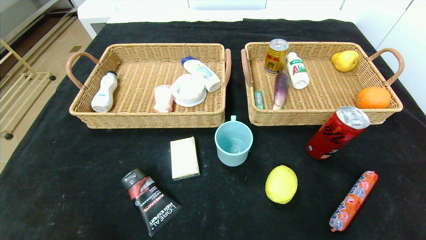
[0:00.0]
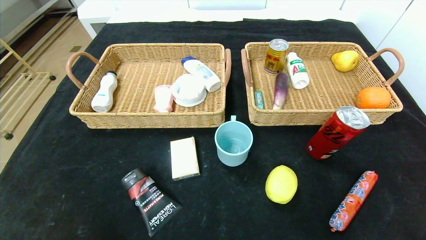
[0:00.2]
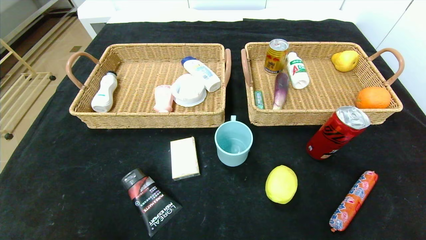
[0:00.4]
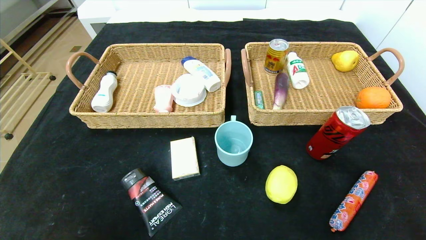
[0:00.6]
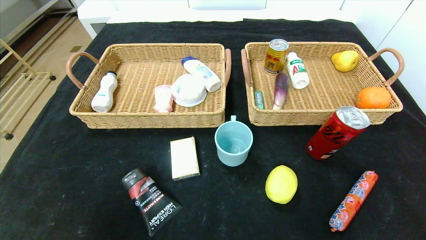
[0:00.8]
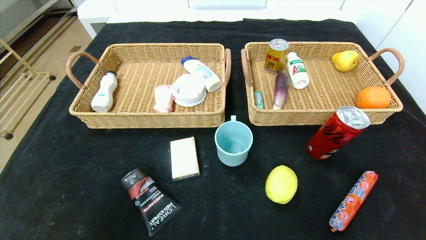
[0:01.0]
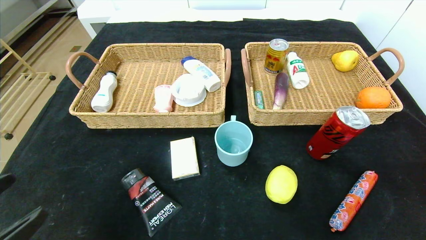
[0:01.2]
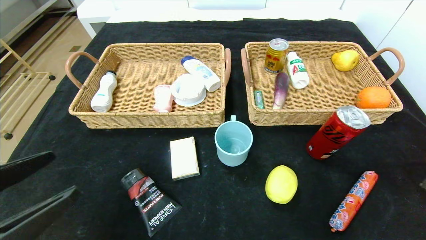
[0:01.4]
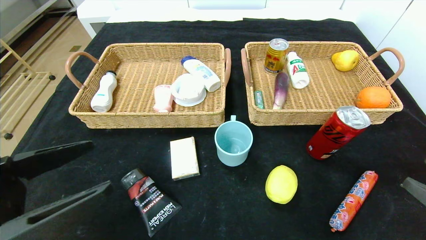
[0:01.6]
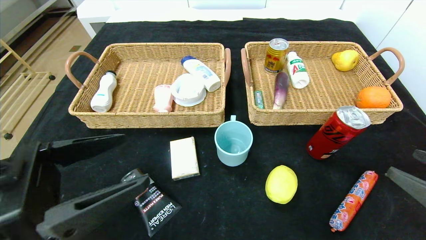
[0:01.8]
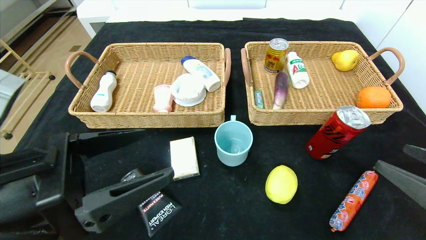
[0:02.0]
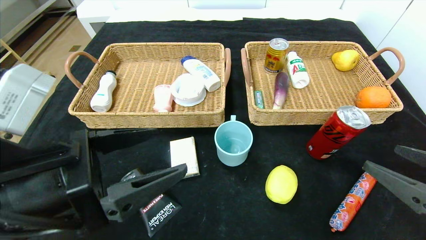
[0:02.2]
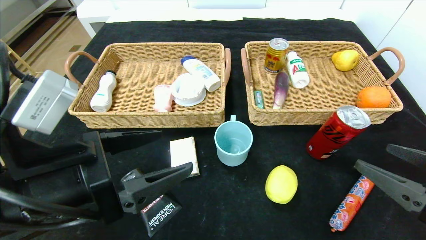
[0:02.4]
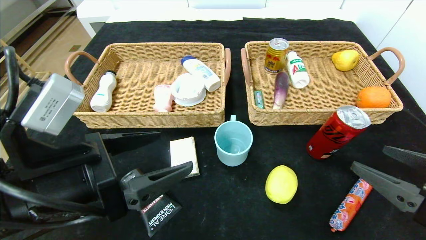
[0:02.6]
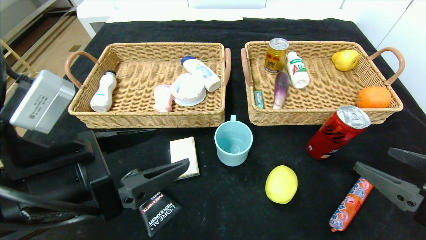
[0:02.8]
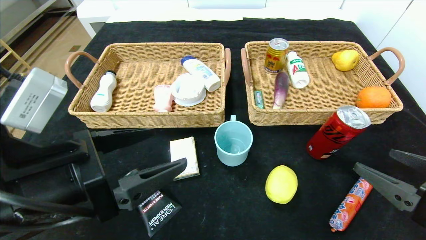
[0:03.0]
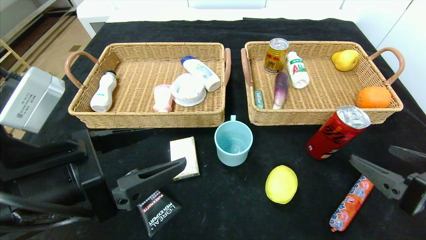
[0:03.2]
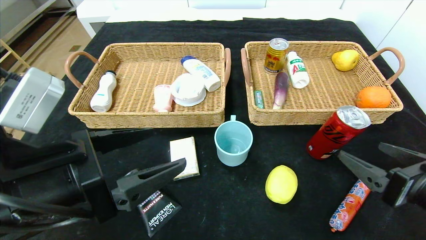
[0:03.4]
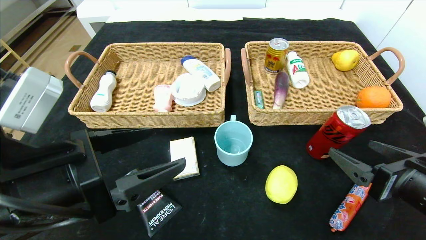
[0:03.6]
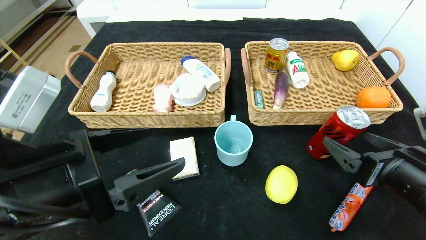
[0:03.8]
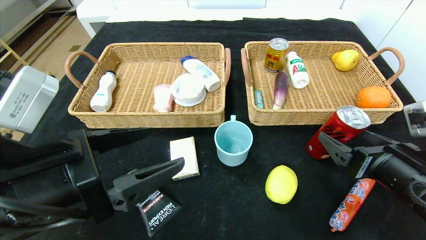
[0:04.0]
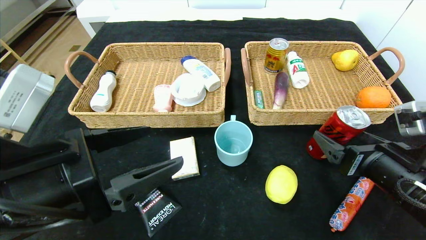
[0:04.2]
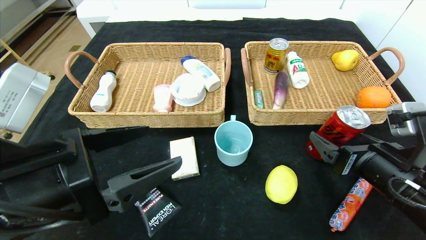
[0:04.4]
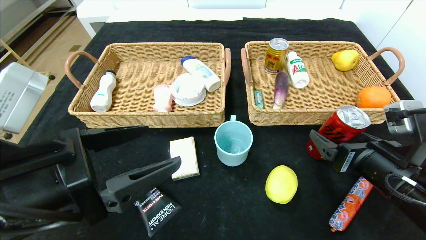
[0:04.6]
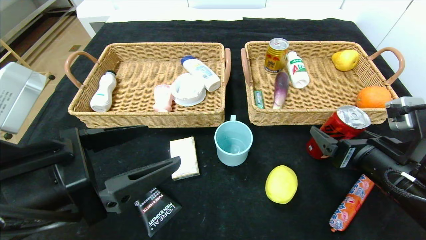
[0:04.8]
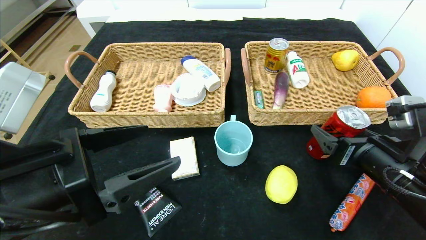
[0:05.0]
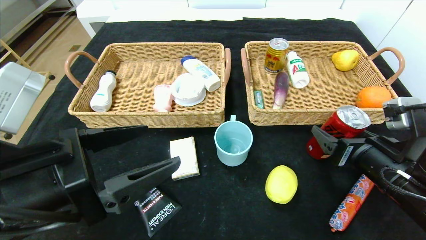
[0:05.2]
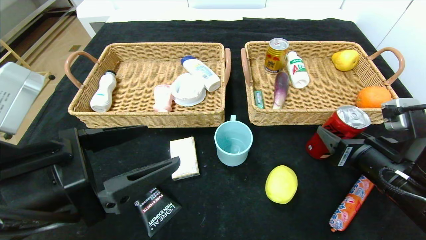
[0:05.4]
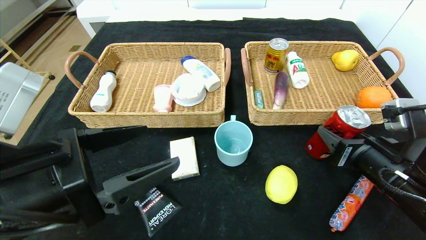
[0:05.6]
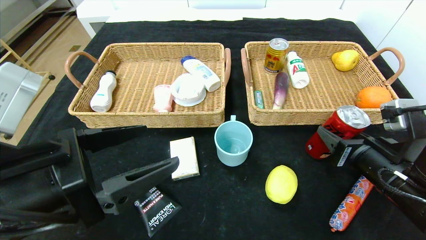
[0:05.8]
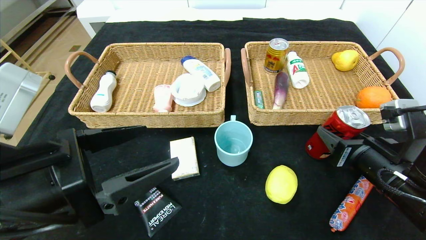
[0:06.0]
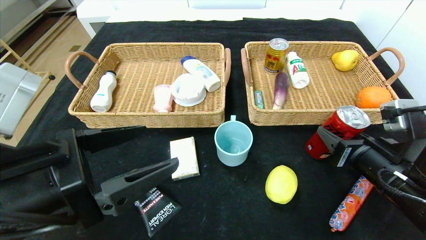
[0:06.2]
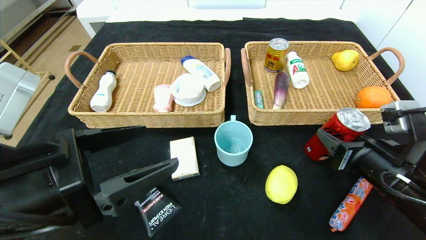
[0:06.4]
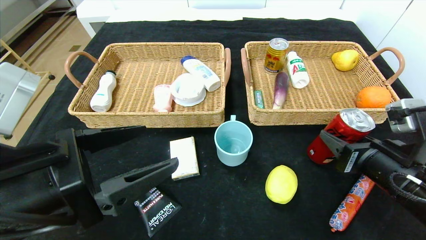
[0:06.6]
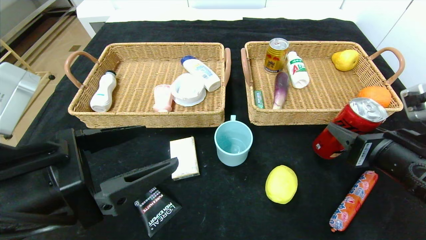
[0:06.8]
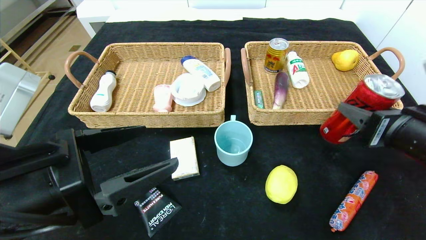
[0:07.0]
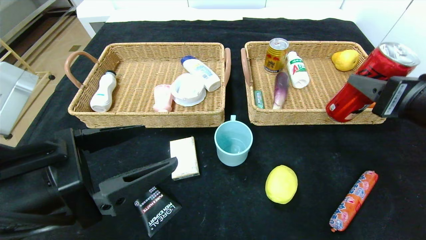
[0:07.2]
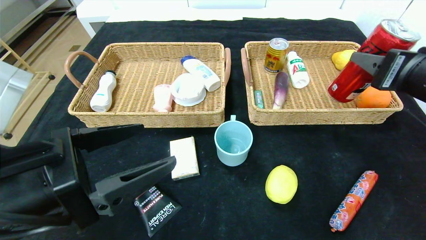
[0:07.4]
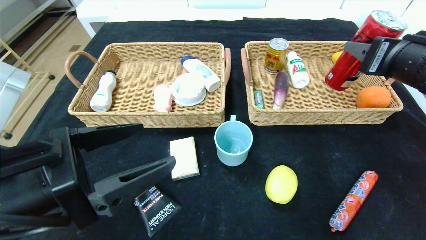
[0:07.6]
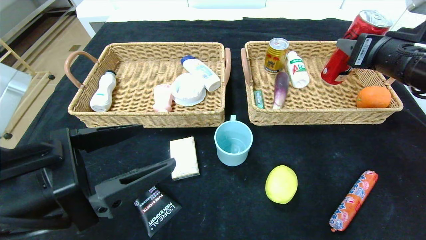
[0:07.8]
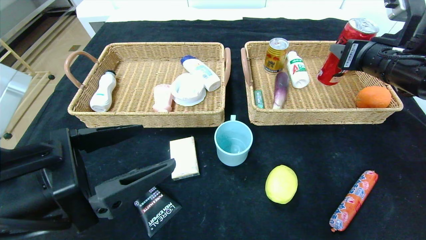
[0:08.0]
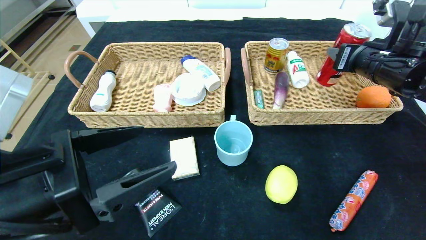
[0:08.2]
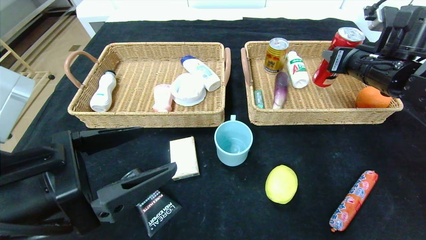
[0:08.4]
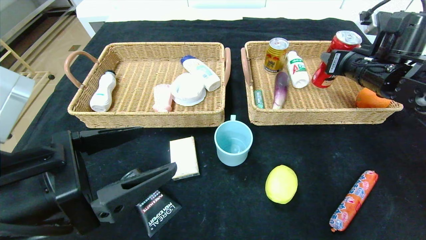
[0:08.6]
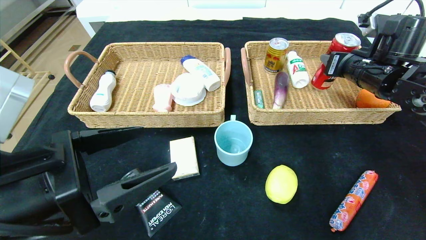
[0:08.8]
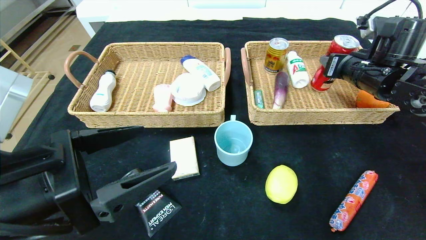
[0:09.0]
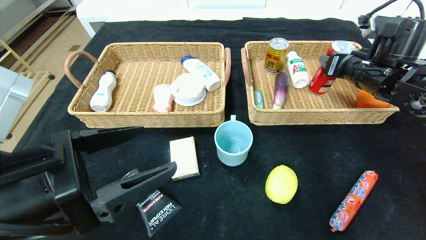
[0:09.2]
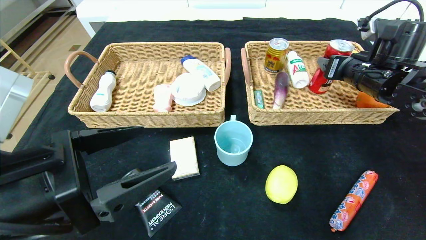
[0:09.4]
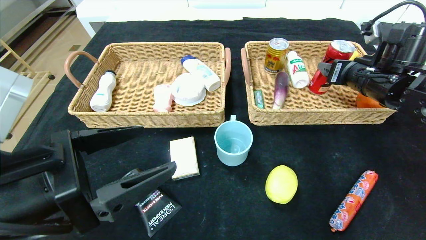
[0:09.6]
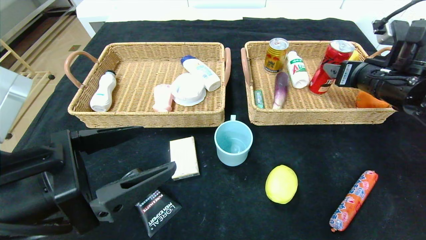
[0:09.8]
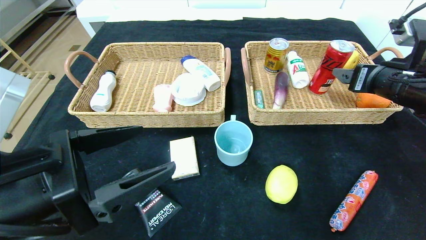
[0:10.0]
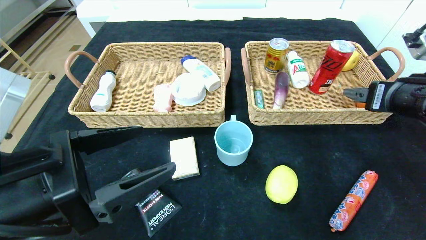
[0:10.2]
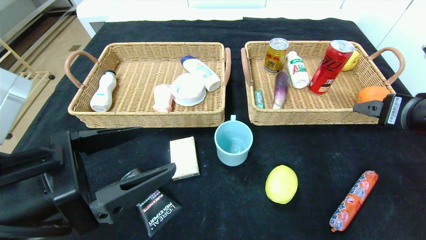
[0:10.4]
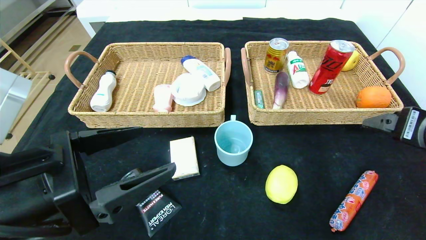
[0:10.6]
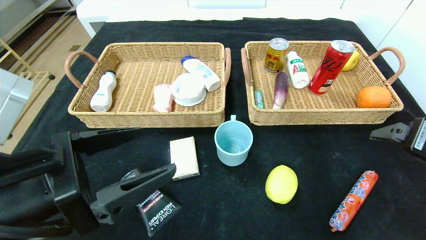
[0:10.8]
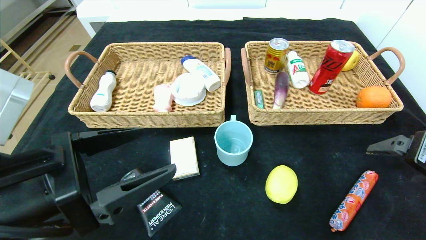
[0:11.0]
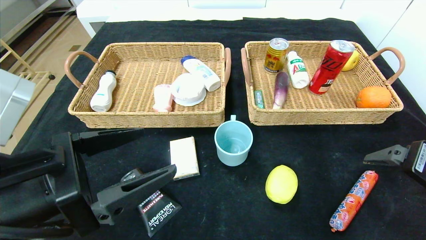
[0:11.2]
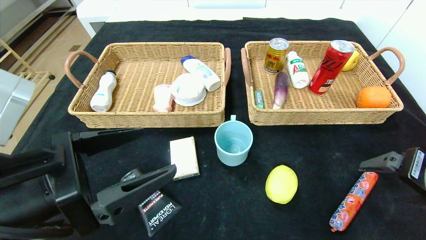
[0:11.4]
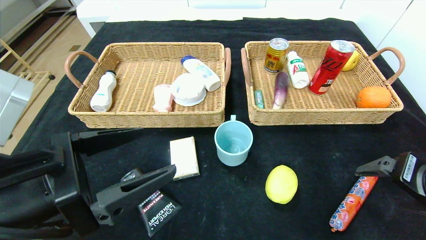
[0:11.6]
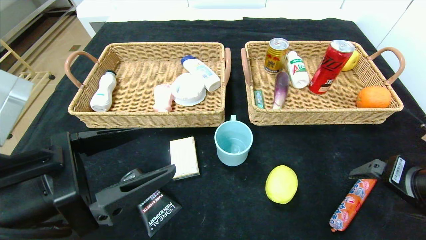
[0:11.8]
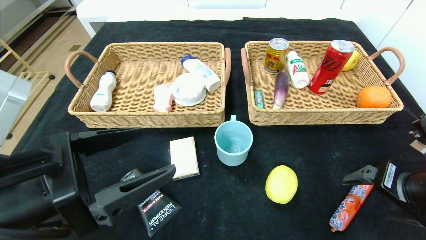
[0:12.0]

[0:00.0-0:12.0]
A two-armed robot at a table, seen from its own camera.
Step, 0:00.0 to 0:09.8: Grasp the canned cola and put it in the right basket.
0:00.0 to 0:01.6: The right gripper travels forward by approximately 10 cm, while the left gripper heads forward and upward, covering approximately 10 cm.
0:01.6 to 0:03.0: The left gripper goes some 5 cm to the right; the right gripper shifts by approximately 5 cm.
0:03.0 to 0:04.4: The right gripper shifts approximately 10 cm forward and to the left.
0:04.4 to 0:06.0: The right gripper closes up.
0:06.0 to 0:07.6: The right gripper is displaced upward by about 15 cm.
0:07.6 to 0:09.0: The right gripper shifts roughly 10 cm forward.
0:09.0 to 0:10.4: The right gripper shifts approximately 15 cm backward, and opens.
0:10.4 to 0:12.0: The right gripper moves downward, about 5 cm.

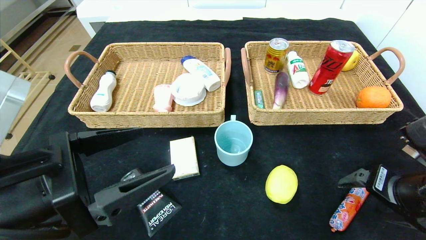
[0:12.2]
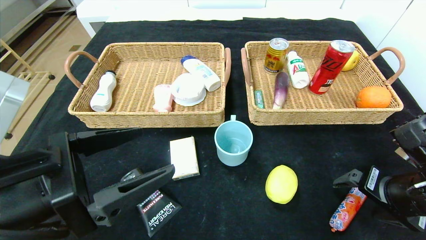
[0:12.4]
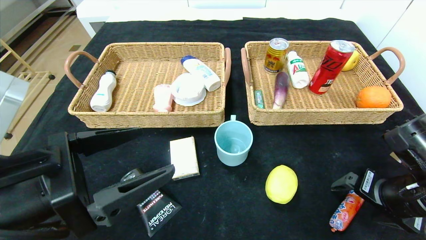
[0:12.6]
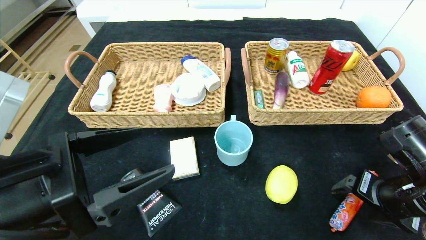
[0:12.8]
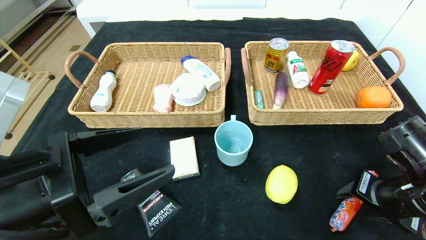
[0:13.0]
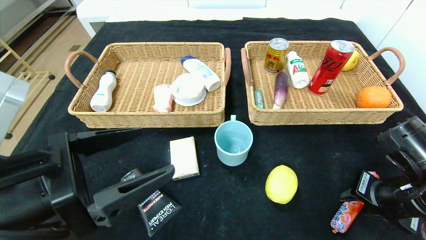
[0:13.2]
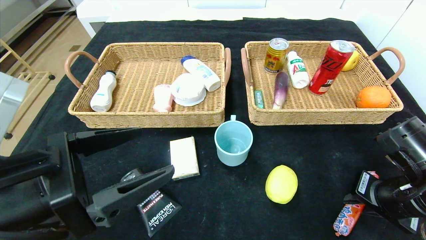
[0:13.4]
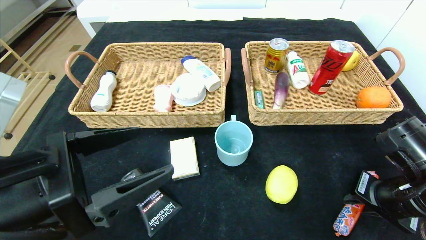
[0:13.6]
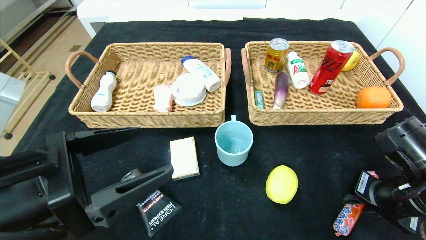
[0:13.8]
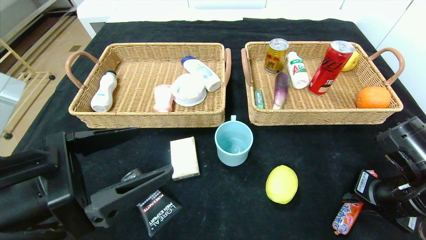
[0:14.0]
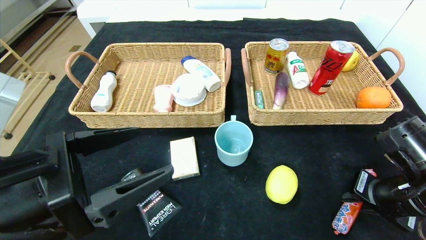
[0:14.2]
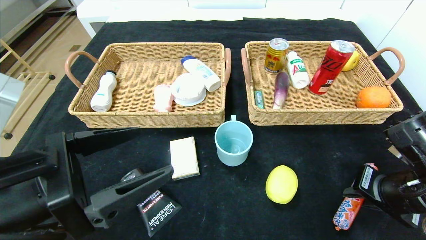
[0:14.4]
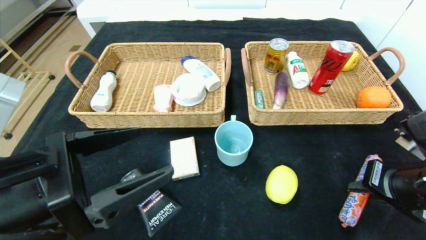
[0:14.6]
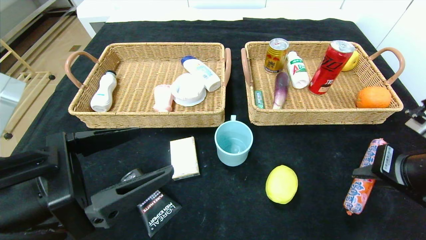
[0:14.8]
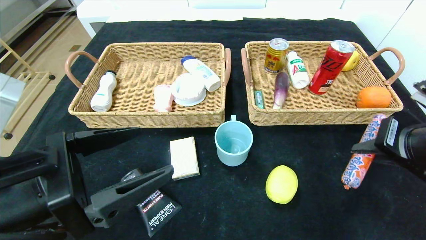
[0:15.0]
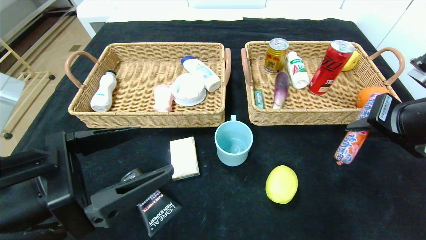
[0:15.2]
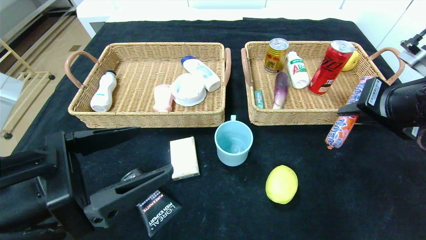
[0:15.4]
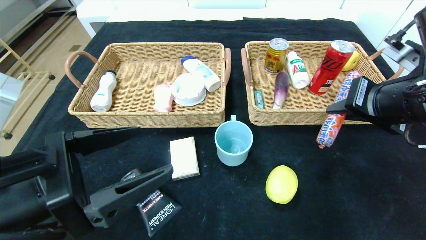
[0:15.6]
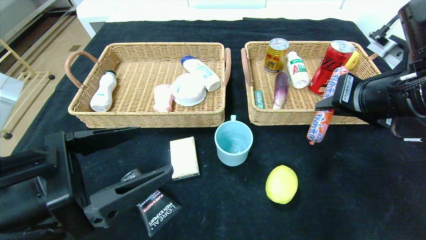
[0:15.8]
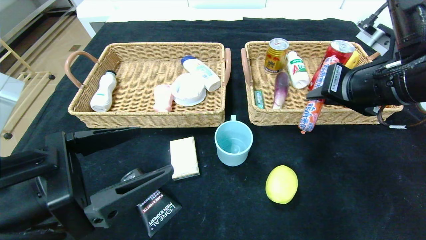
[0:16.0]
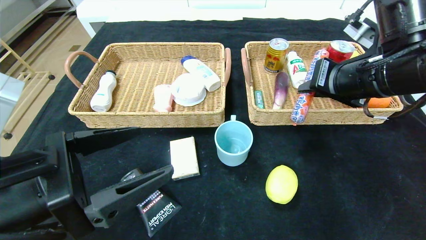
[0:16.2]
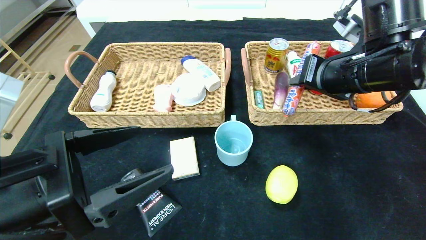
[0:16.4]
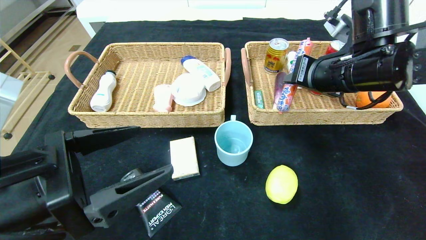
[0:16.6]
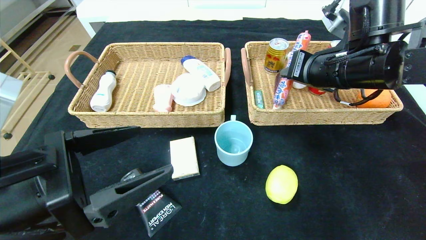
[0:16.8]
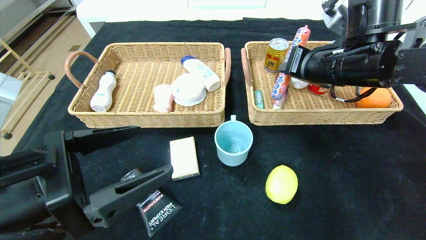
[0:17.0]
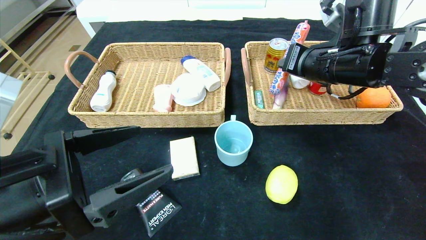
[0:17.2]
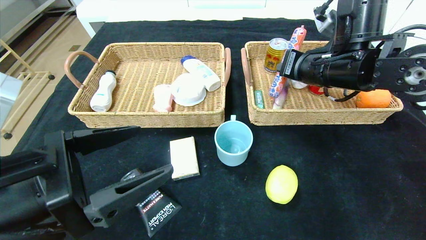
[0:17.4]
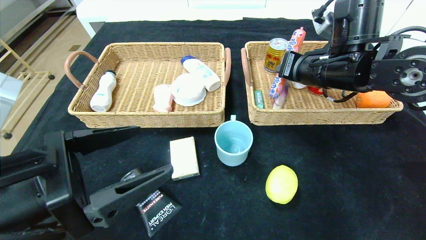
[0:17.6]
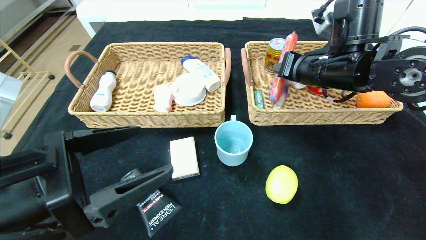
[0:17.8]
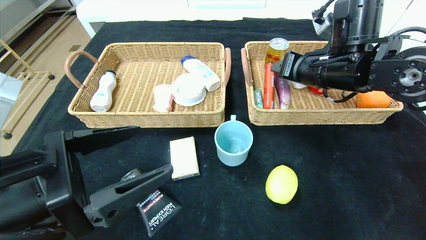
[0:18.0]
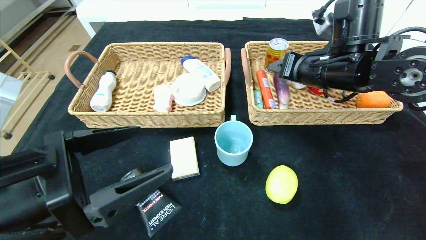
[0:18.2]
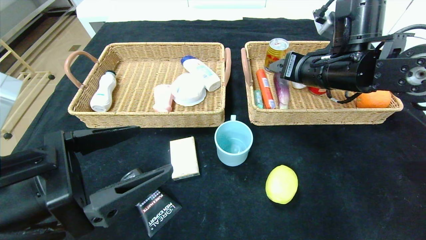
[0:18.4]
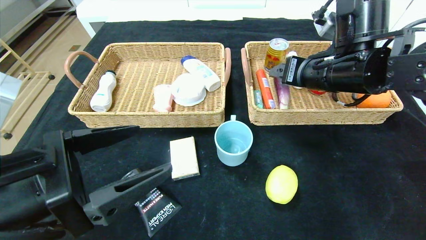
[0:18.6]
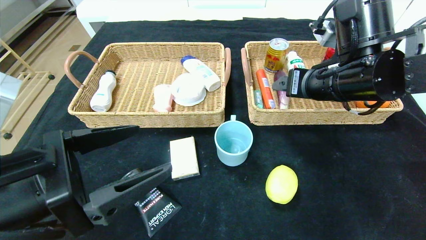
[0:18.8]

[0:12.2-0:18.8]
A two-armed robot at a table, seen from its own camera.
Step, 0:12.2 to 0:18.4: Grasp the sausage and put it in the right basket.
0:12.2 to 0:13.8: The right gripper closes its fingers.
0:13.8 to 0:15.4: The right gripper travels upward by about 15 cm.
0:15.4 to 0:17.2: The right gripper moves forward and to the left, some 15 cm.
0:17.2 to 0:18.8: The right gripper opens its fingers.
